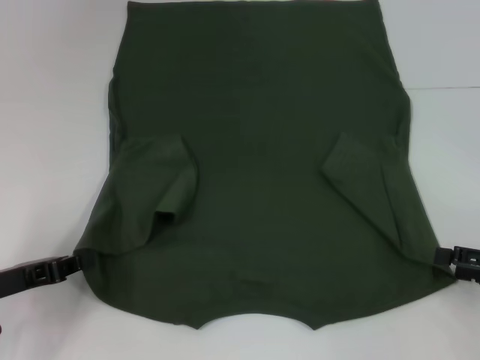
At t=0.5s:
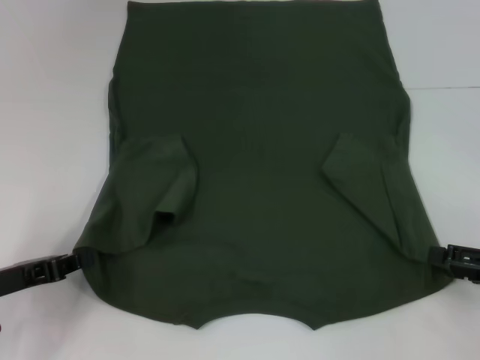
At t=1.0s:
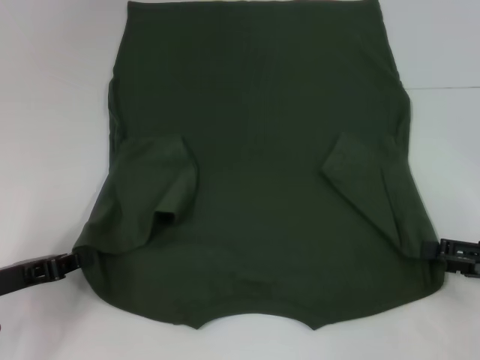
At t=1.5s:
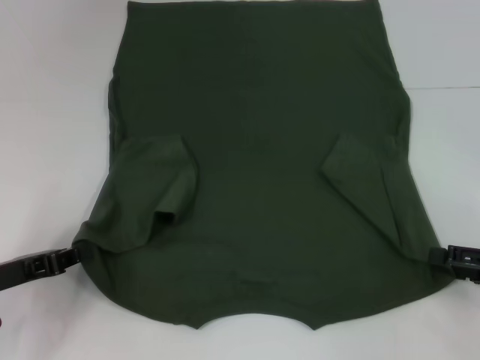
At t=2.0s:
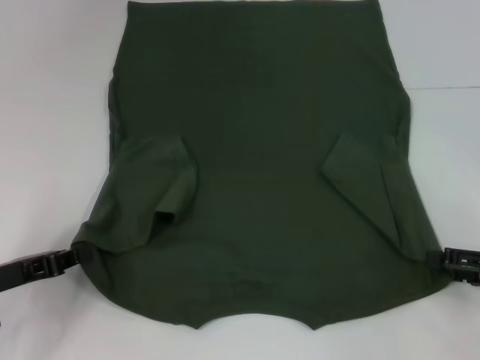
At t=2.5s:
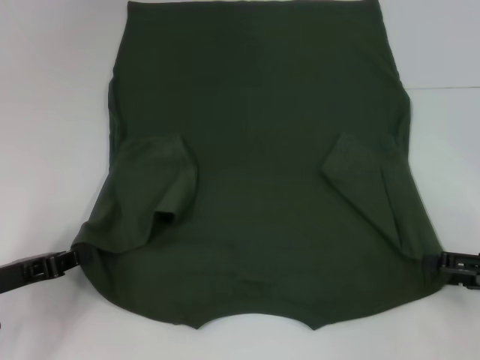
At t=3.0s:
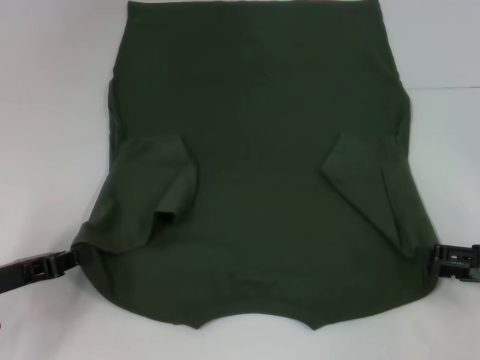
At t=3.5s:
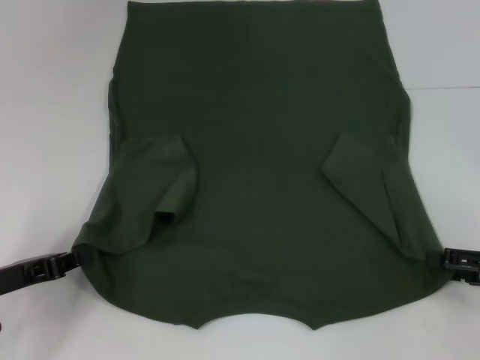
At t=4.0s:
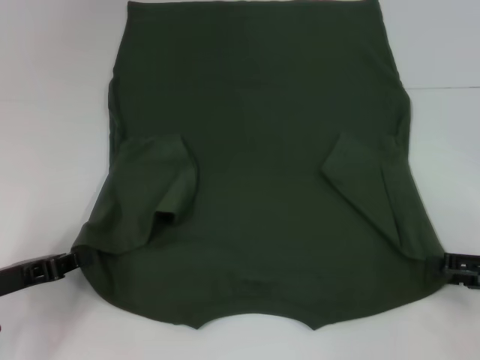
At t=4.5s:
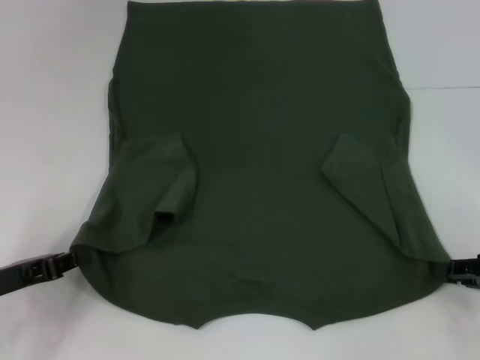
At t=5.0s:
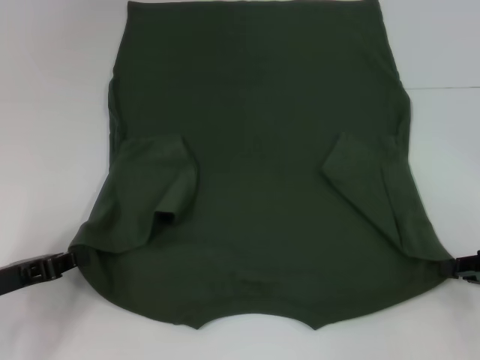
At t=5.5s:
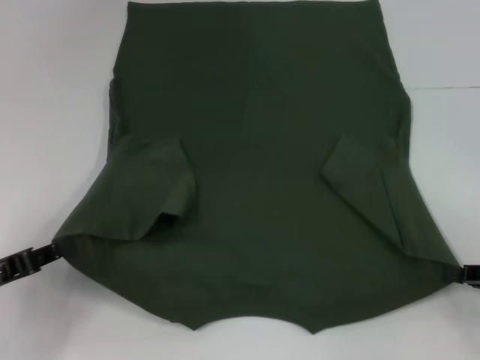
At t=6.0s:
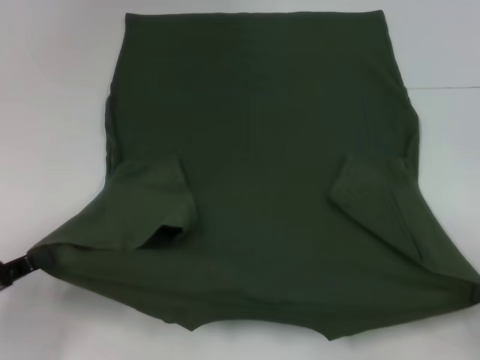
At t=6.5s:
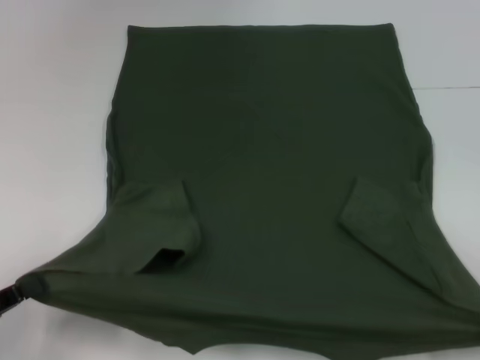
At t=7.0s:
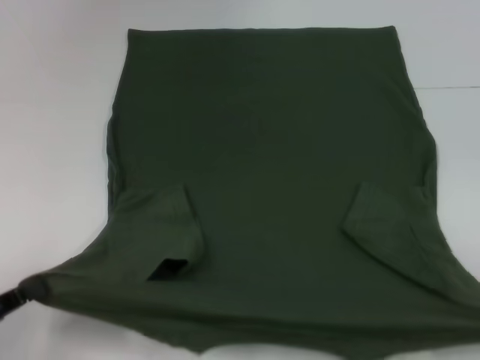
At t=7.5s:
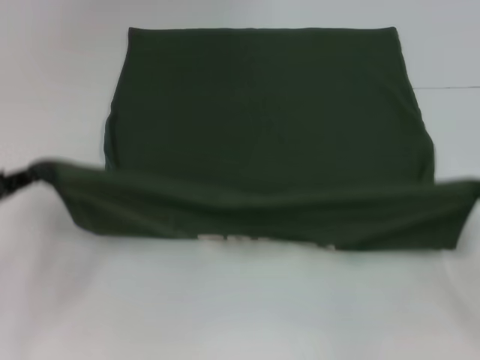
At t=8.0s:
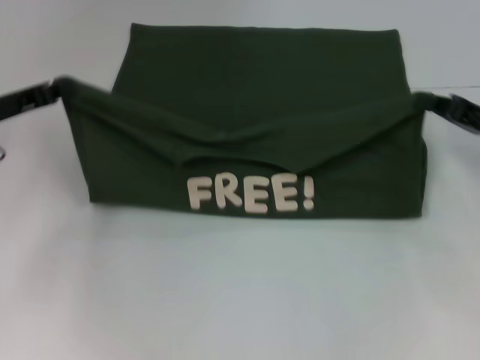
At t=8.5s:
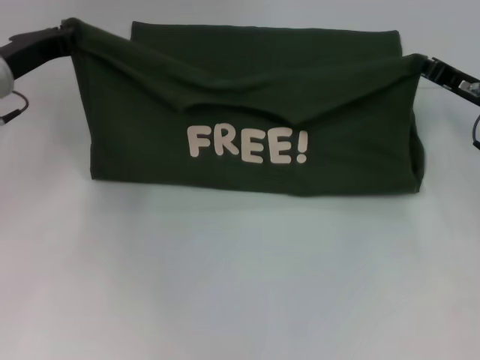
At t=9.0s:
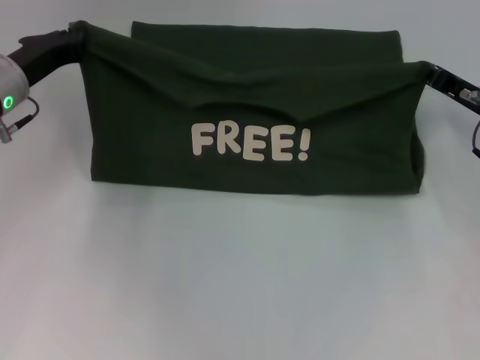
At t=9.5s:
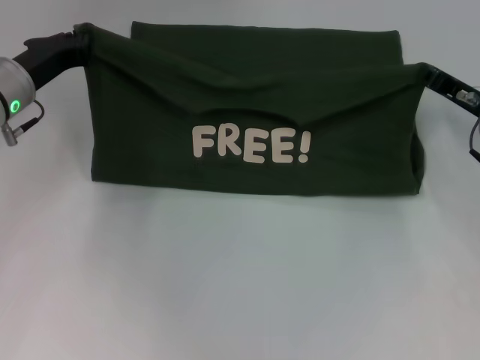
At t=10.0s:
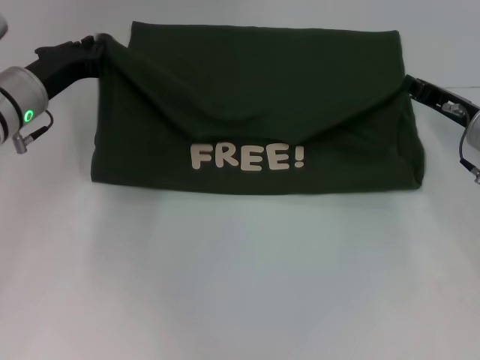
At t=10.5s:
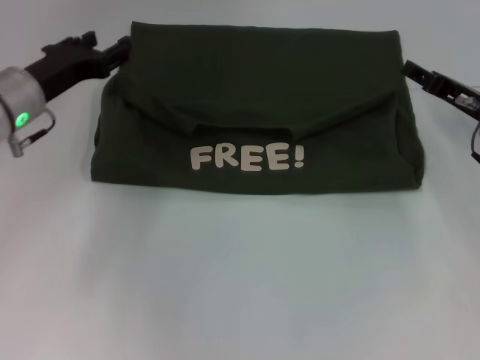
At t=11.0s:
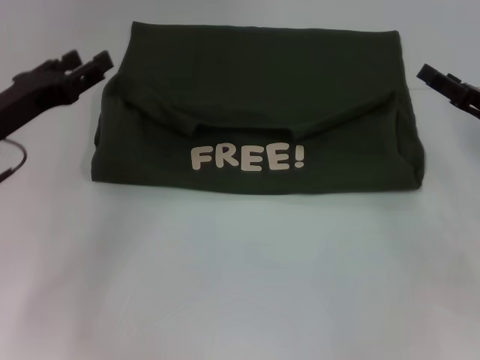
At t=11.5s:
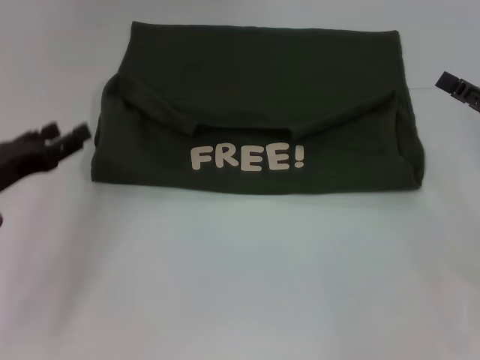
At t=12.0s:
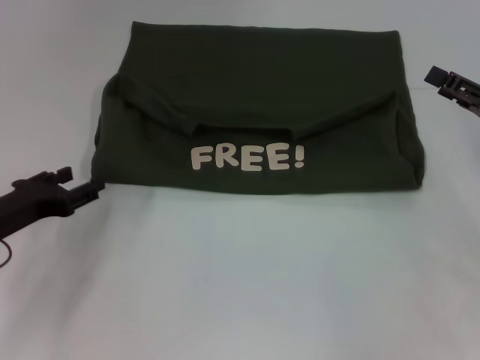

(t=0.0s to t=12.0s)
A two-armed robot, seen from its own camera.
Step, t=1.5s - t=10.5s: Fold the clothes with your left hand.
Step, t=1.5s - t=10.5s: Fold the clothes with your right hand.
t=0.0s - t=2.0s: The grippers stay close to where they were, moving slightly.
t=2.0s - t=4.0s: Neither gripper changes place.
t=4.0s - t=6.0s: The left gripper shifts by approximately 5 cm. The right gripper travels backward by some 5 cm, and closes.
t=6.0s - t=8.0s: Both grippers travel together forward, approximately 20 cm.
t=8.0s - t=10.0s: The left gripper heads to the right, covering some 5 cm; the right gripper moves some 5 cm.
t=10.0s - t=12.0s: The left gripper heads backward, downward and to the left, covering approximately 15 cm, and opens up; the right gripper travels backward and to the right by some 10 cm, and opens its fingers.

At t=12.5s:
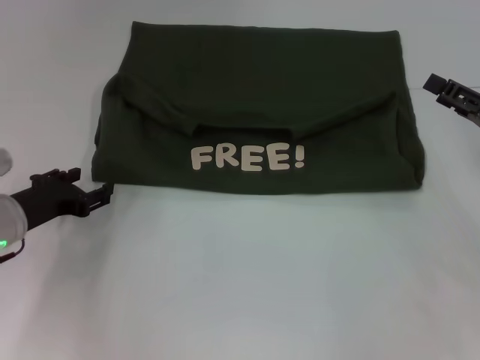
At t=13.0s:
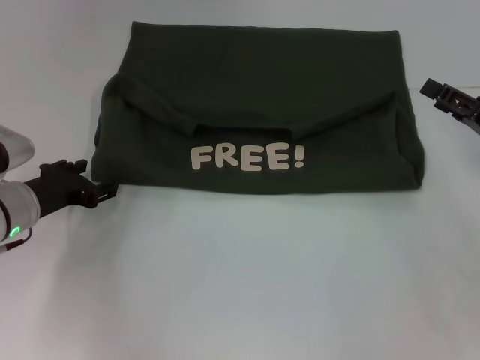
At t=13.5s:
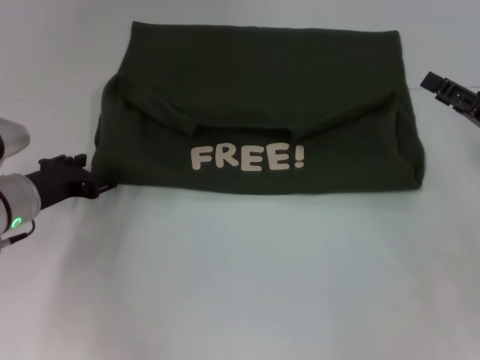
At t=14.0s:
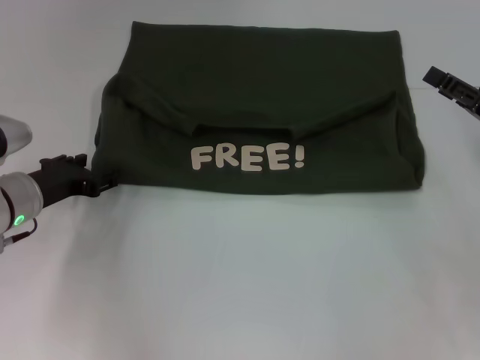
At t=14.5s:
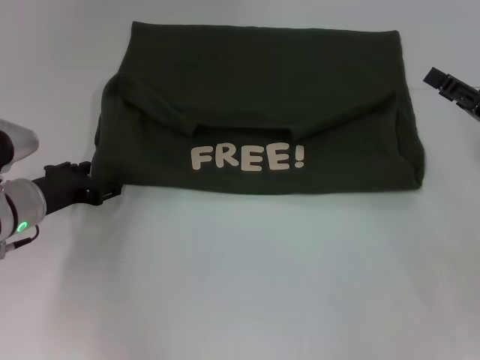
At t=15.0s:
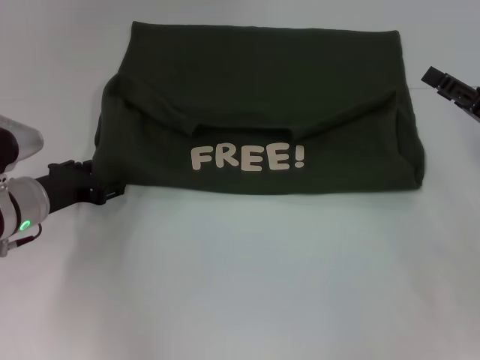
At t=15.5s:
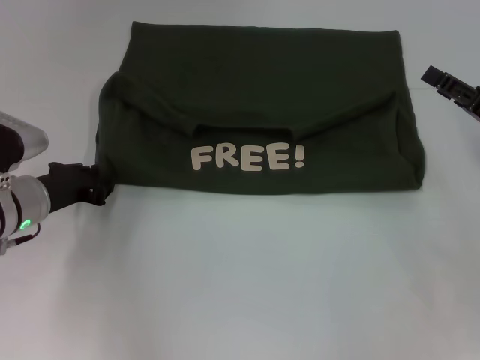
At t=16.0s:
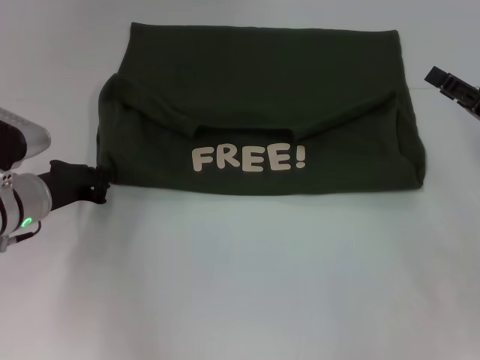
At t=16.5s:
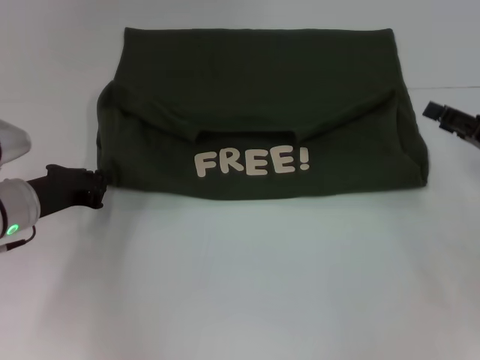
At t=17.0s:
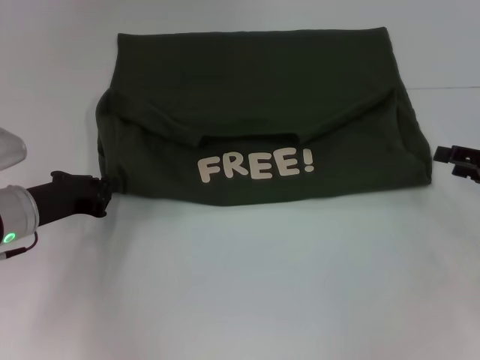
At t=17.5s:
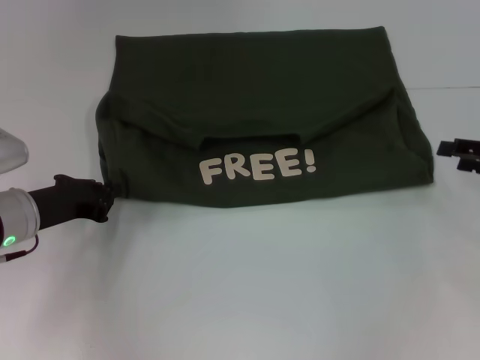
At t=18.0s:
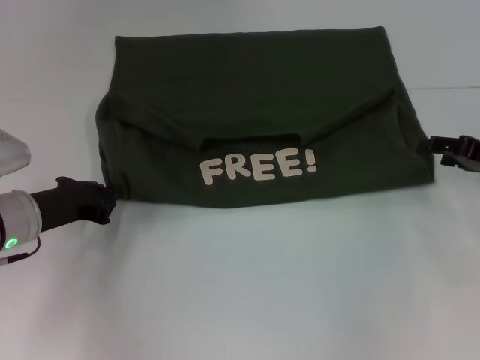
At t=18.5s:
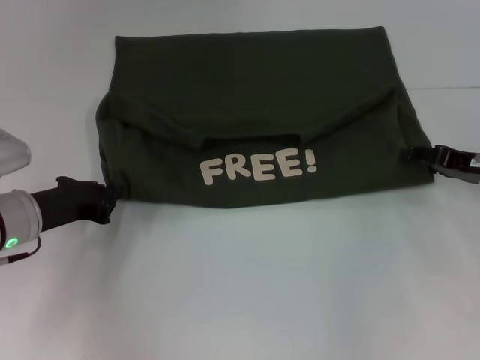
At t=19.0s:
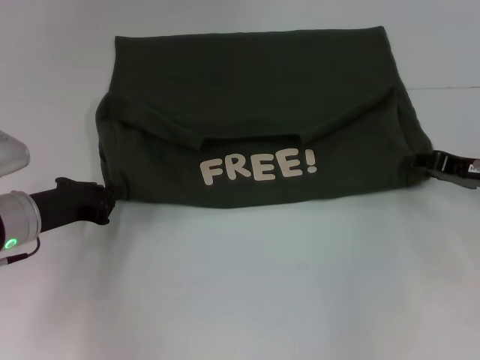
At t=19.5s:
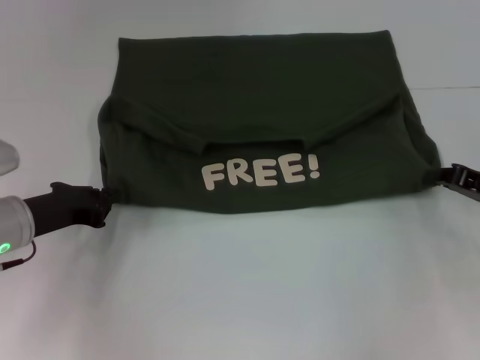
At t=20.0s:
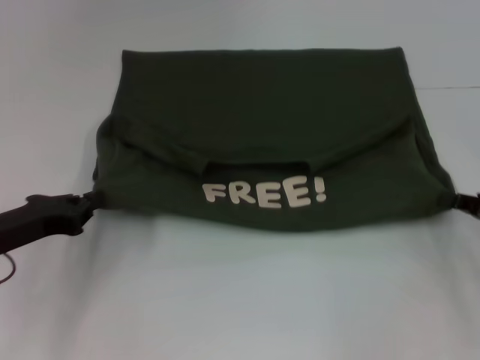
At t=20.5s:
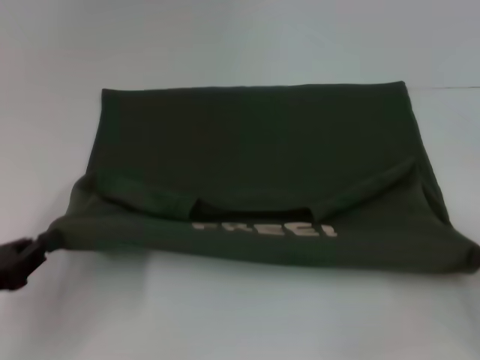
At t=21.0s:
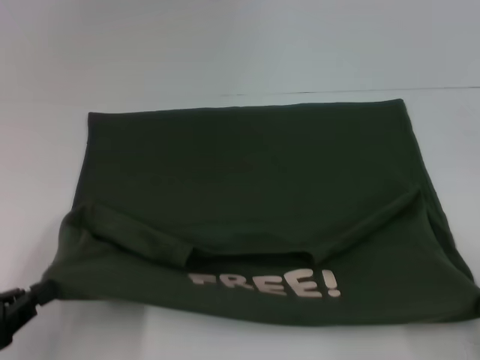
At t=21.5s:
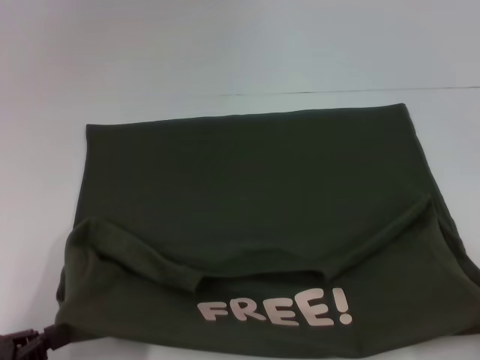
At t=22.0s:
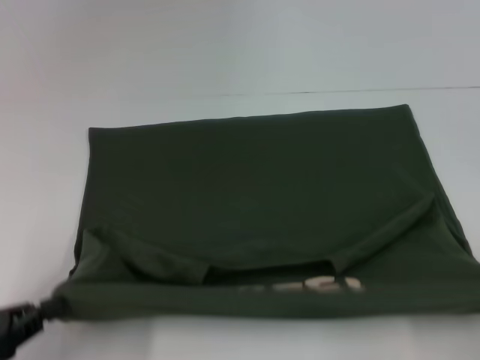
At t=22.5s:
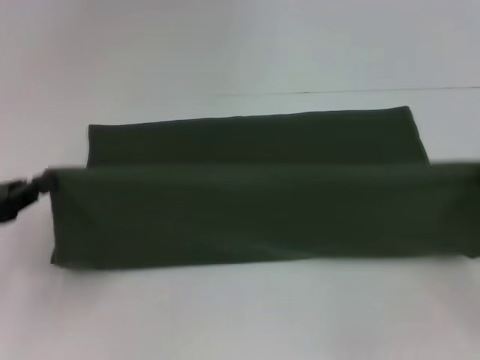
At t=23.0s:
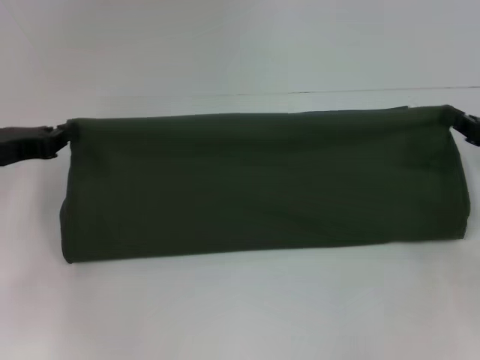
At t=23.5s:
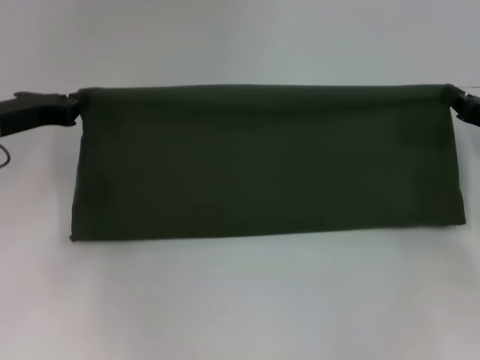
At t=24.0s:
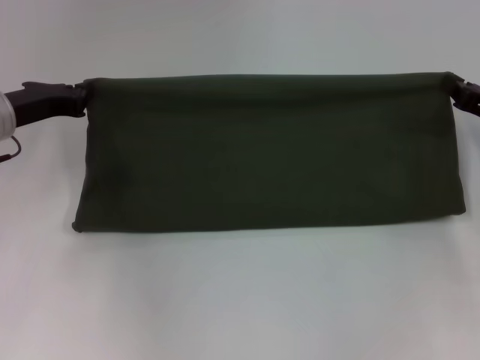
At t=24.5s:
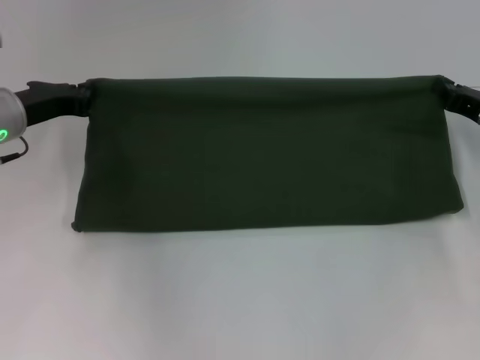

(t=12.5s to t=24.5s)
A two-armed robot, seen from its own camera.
Step, t=12.5s - t=21.0s: Pull the clothes with your left hand.
Step, t=12.5s - t=21.0s: Pull the clothes with your right hand.
t=12.5s - t=14.5s: The grippers move only a little.
t=14.5s - t=16.5s: The left gripper closes its fingers.
t=18.5s - t=20.5s: The right gripper moves backward, about 15 cm, and closes its fingers; the left gripper shifts about 15 cm backward and to the left.
t=20.5s - t=22.5s: The right gripper moves some 5 cm. Meanwhile the left gripper moves roughly 5 cm.
t=22.5s - t=24.5s: The right gripper goes roughly 15 cm forward and to the left. Meanwhile the left gripper shifts approximately 15 cm forward and to the right.

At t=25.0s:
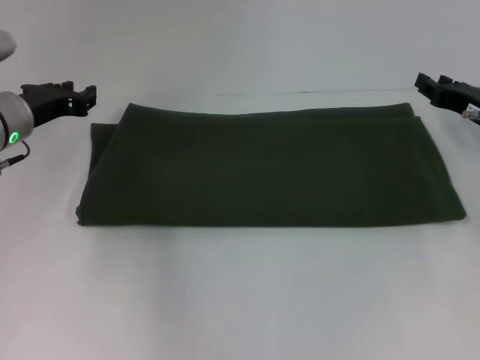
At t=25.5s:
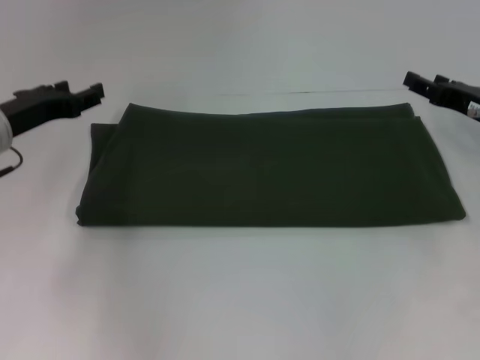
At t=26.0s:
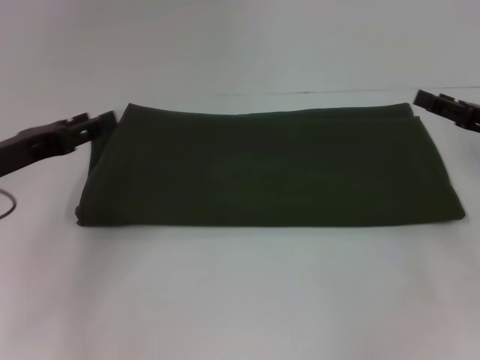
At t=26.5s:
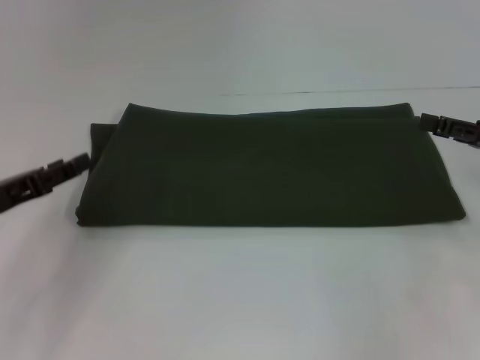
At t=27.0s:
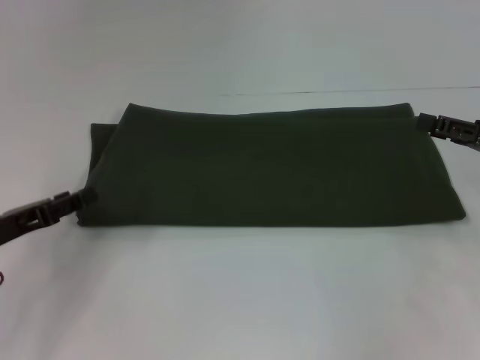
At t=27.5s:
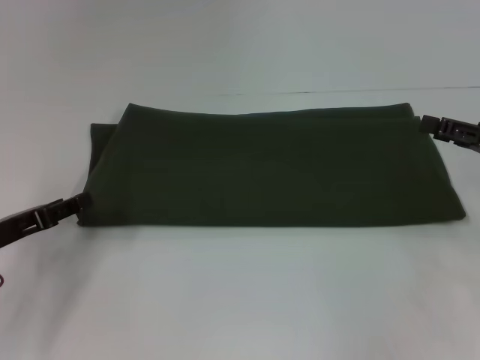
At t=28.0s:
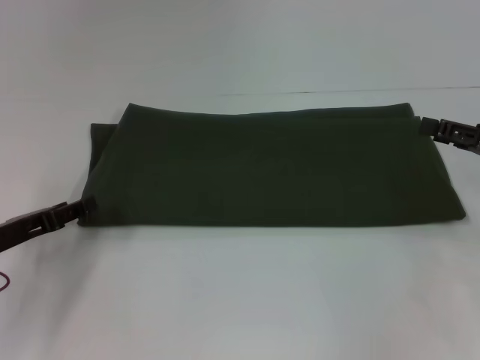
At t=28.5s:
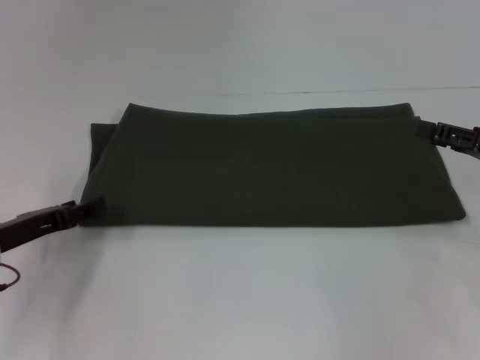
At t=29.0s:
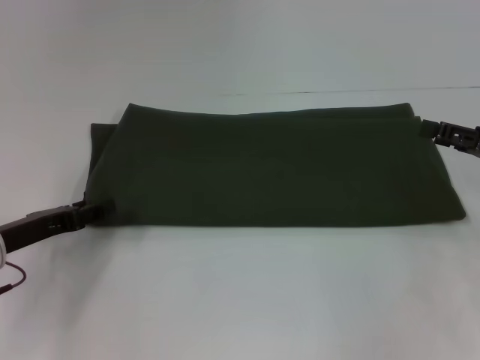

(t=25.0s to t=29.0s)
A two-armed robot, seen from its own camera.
t=25.0s - t=27.0s: The right gripper heads backward, covering roughly 5 cm, and opens its fingers; the left gripper heads backward, covering approximately 15 cm, and opens.
t=27.0s - t=29.0s: The grippers move only a little.
